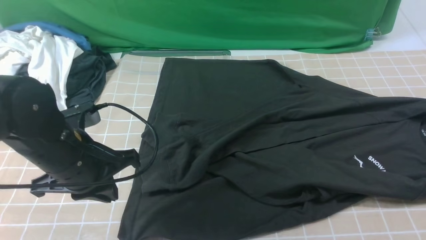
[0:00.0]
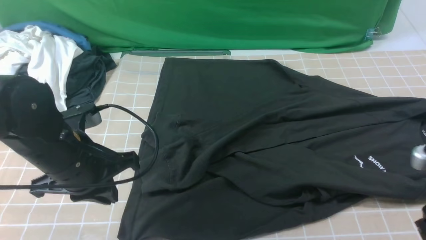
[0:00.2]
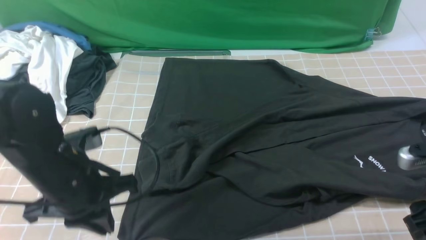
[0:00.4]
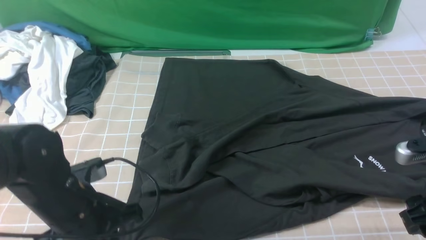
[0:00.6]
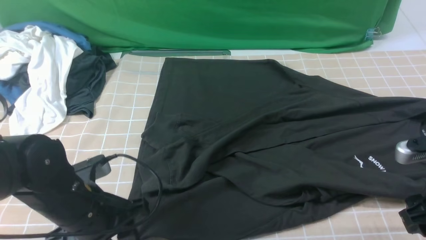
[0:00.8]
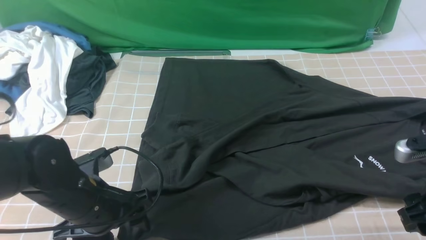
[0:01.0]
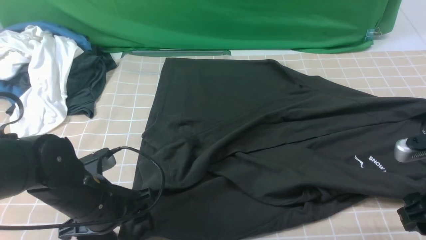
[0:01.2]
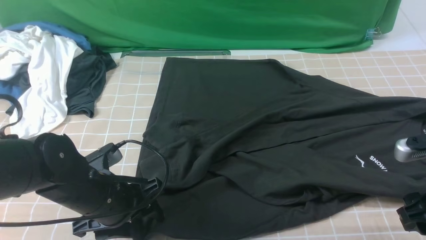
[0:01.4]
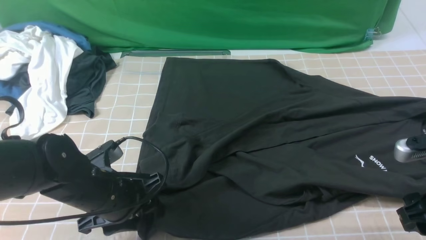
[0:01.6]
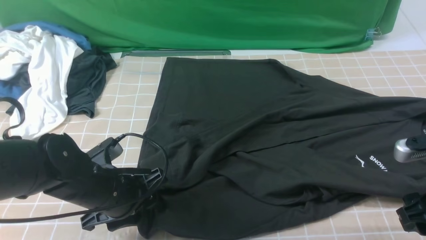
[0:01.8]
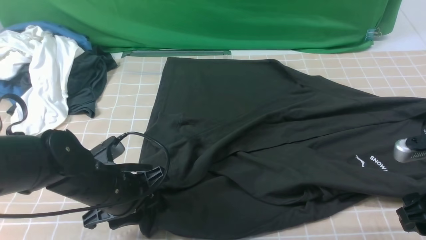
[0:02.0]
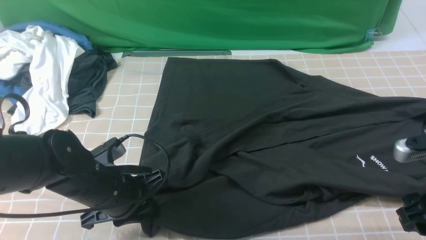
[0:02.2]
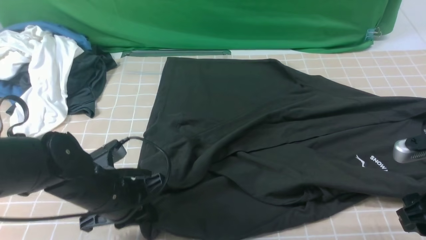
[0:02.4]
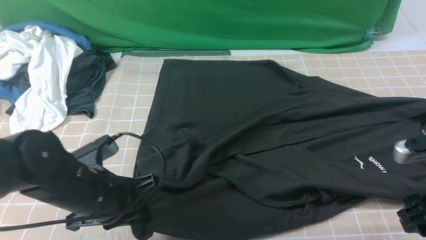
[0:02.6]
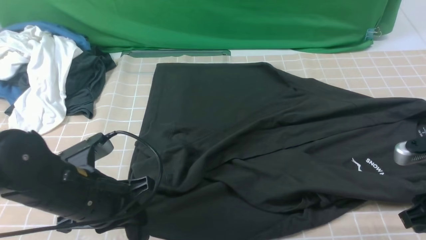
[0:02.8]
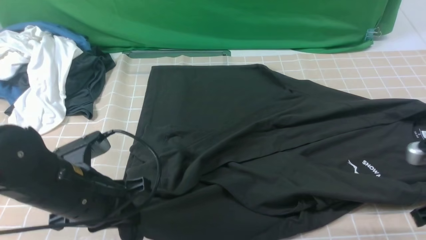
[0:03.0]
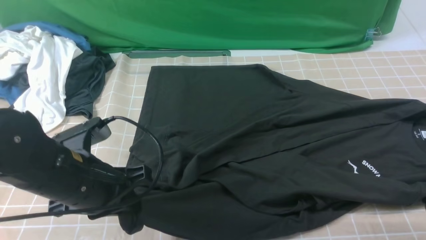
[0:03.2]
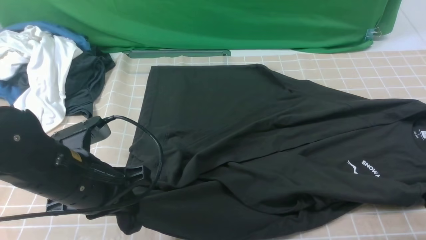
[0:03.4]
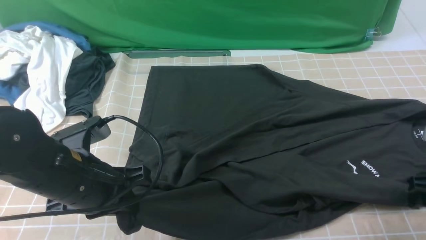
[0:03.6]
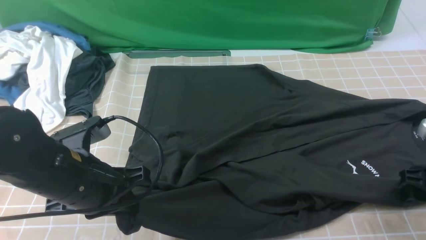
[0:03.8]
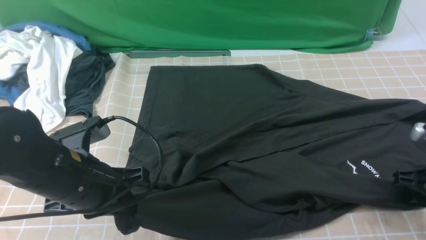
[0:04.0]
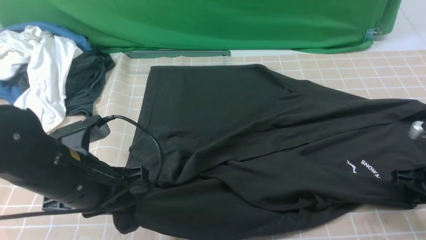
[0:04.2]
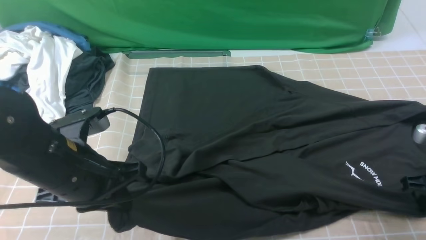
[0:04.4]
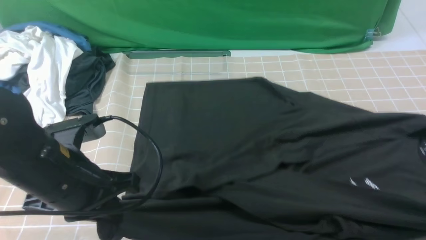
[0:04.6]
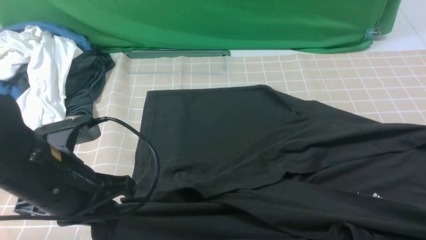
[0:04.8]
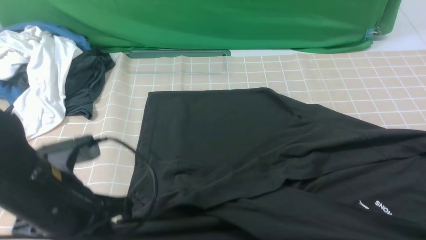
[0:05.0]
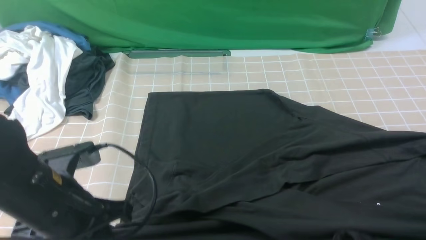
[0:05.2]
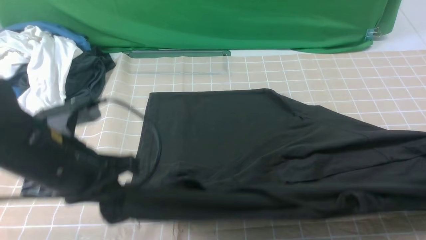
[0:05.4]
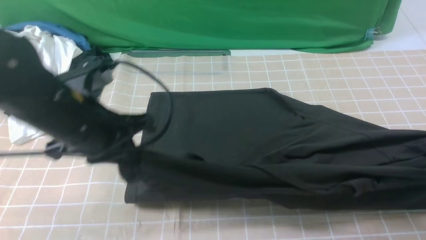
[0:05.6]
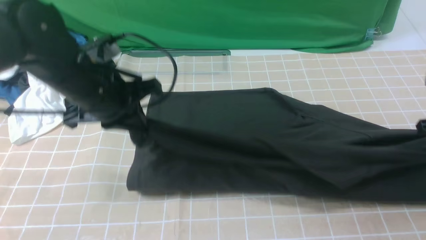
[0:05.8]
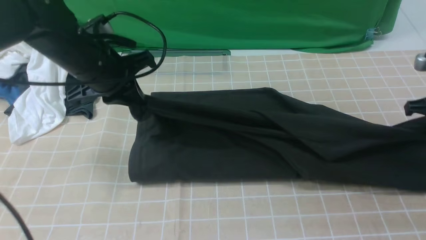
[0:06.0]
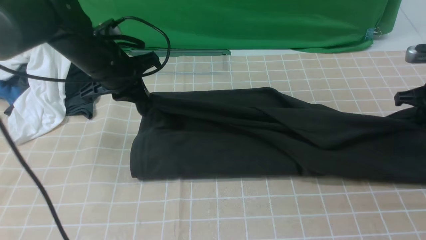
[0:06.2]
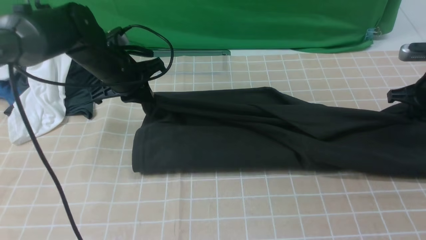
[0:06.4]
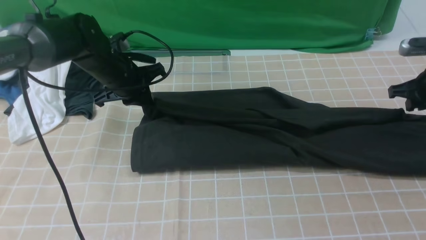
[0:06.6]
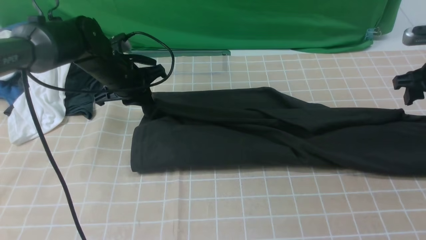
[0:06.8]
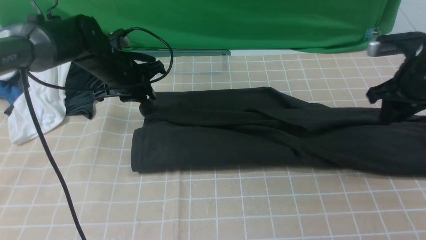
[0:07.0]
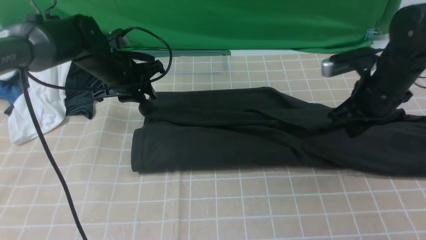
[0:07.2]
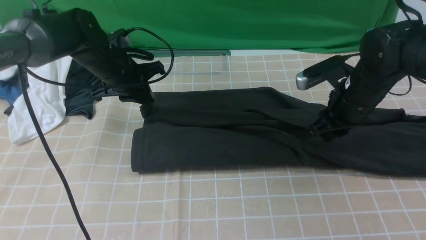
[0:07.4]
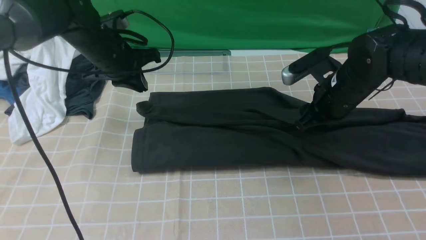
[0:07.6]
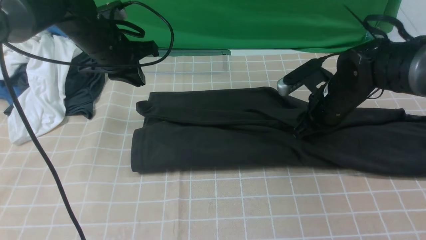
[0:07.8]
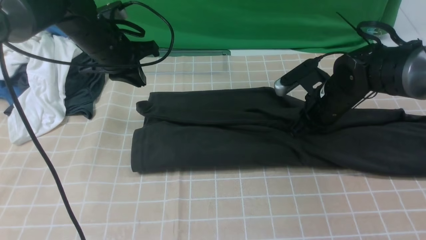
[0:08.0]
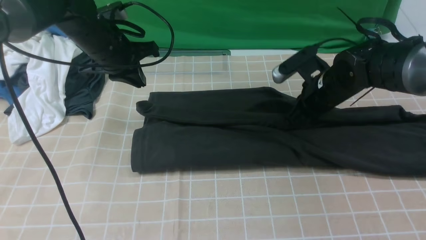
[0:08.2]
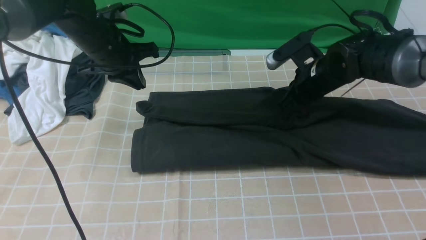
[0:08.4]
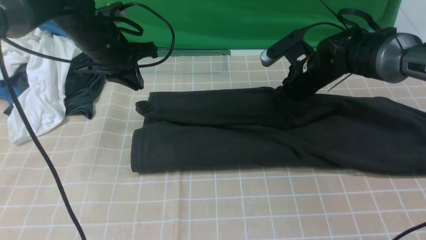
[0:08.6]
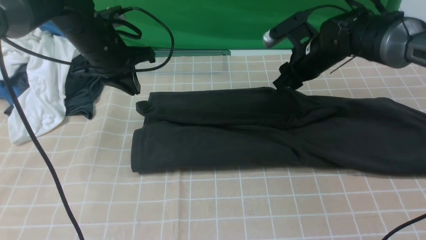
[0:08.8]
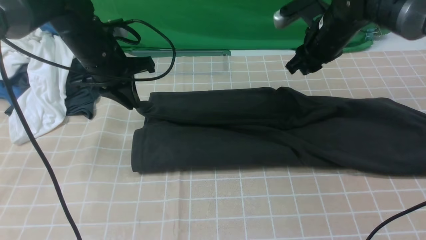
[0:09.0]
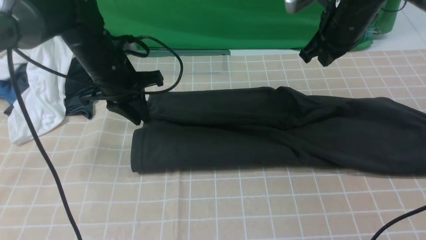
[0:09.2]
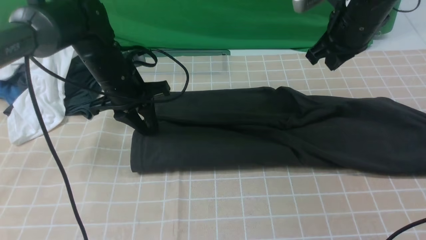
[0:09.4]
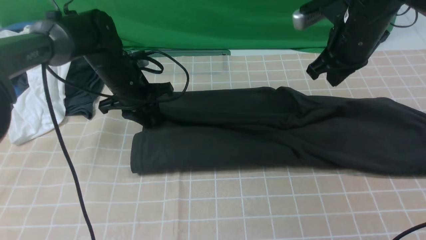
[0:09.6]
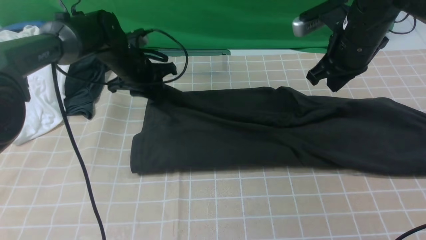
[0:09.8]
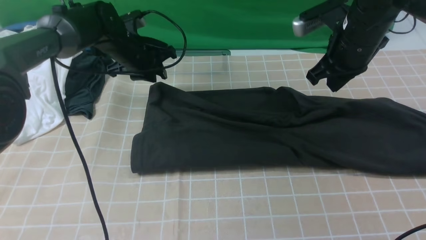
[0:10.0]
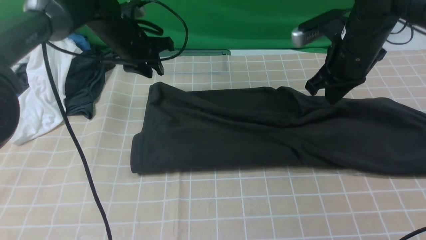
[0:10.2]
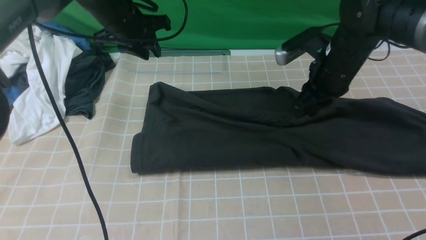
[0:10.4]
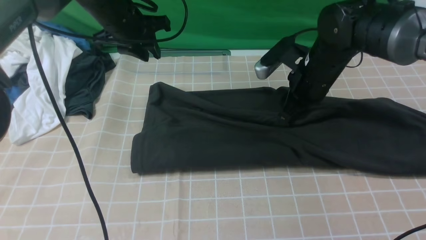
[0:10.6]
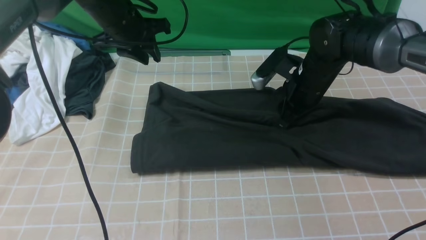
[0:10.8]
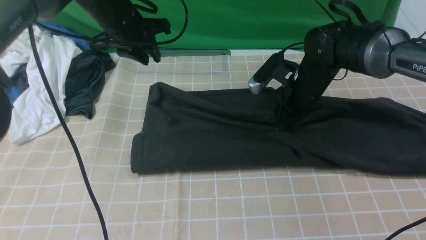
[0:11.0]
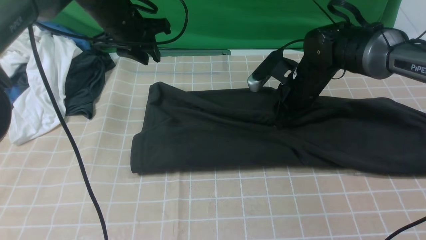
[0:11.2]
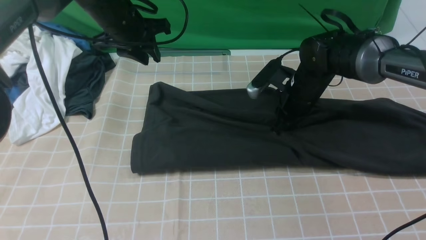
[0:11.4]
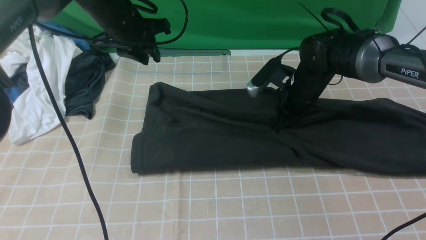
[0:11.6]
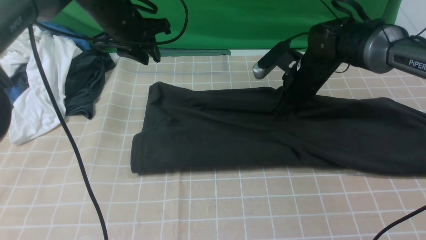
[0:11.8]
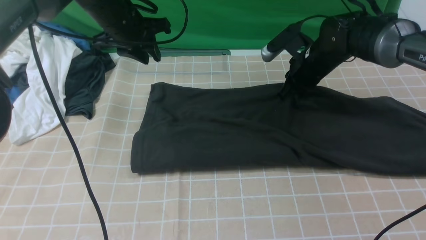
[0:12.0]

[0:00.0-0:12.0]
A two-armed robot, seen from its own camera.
Step, 0:00.0 to 0:04.2: use both arms simultaneously to clamp the lower edge of the clothing fabric.
0:00.0 to 0:01.6: The right gripper changes place by about 5 cm. The left gripper shifts roughly 5 cm downward, and opens its fingers.
0:01.6 to 0:03.0: The right gripper closes its fingers. The left gripper shifts roughly 5 cm upward, and closes up.
0:03.0 to 0:04.4: The right gripper moves approximately 5 cm, and opens, then closes once more.
0:04.4 to 0:06.0: Both grippers travel together forward, about 15 cm.
0:06.0 to 0:07.6: The left gripper travels forward by about 5 cm; the right gripper goes some 15 cm to the left, and opens its fingers.
0:07.6 to 0:09.0: The right gripper heads forward and upward, covering roughly 10 cm.
0:09.0 to 0:10.4: The right gripper changes place by roughly 5 cm, and closes and opens again; the left gripper moves forward, approximately 5 cm, and moves approximately 5 cm downward and comes back.
0:10.4 to 0:12.0: The right gripper travels forward and downward by some 10 cm.

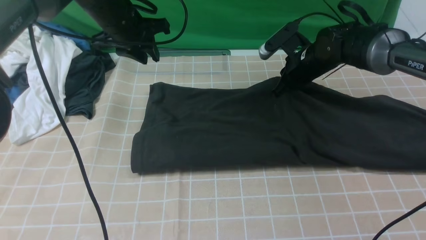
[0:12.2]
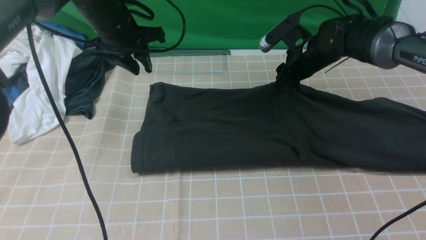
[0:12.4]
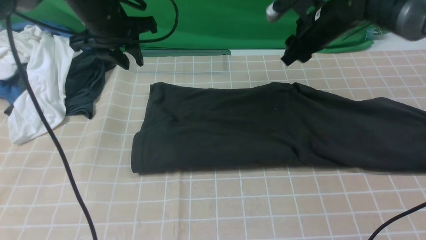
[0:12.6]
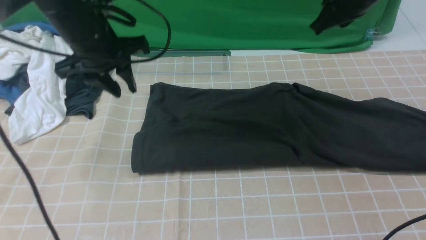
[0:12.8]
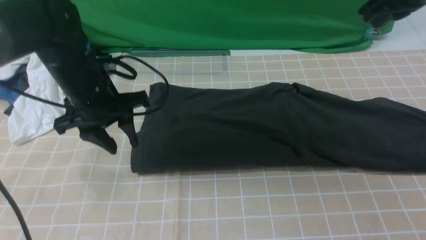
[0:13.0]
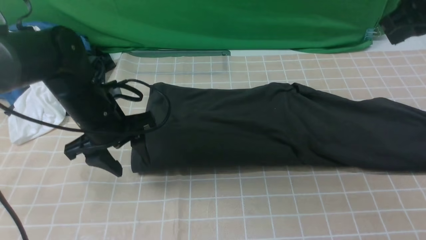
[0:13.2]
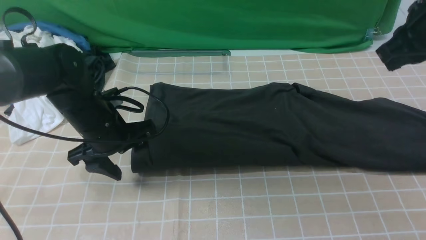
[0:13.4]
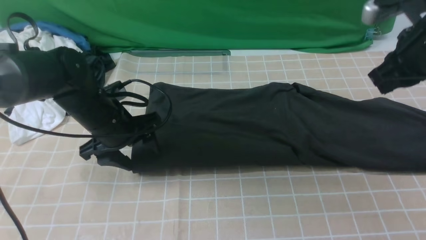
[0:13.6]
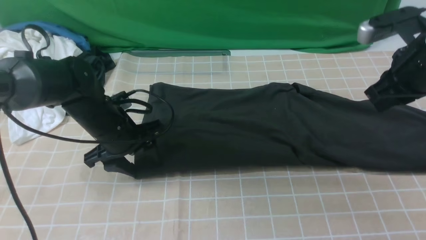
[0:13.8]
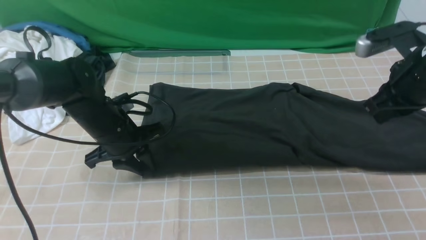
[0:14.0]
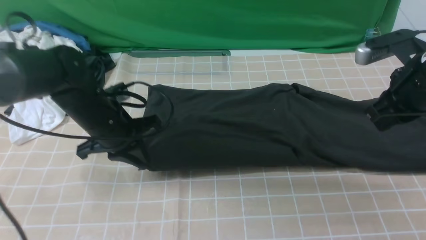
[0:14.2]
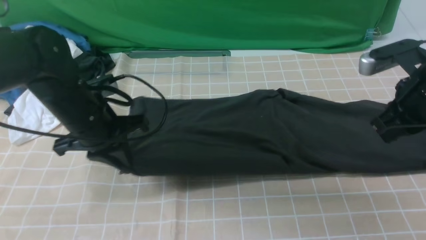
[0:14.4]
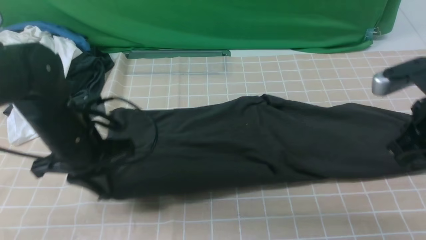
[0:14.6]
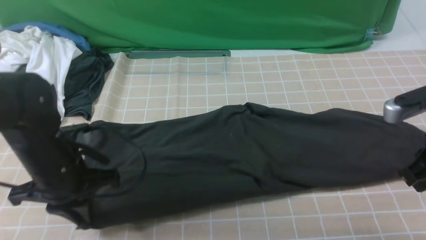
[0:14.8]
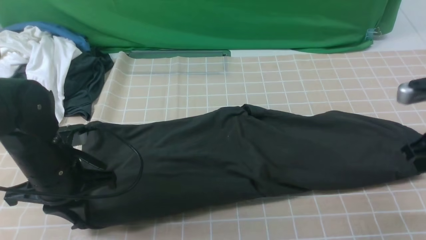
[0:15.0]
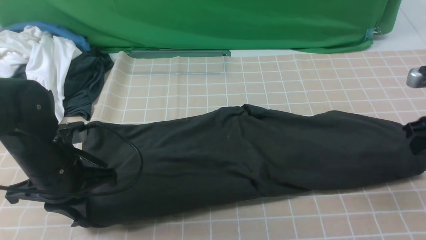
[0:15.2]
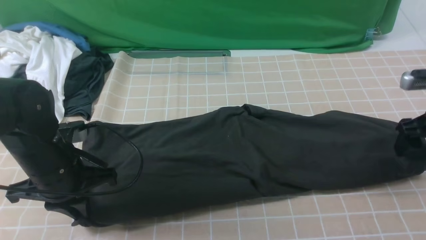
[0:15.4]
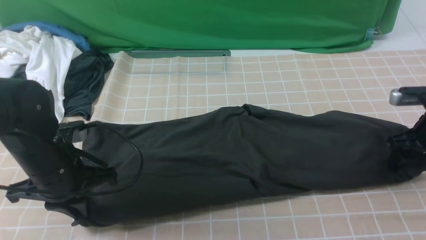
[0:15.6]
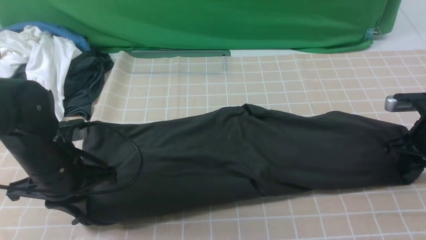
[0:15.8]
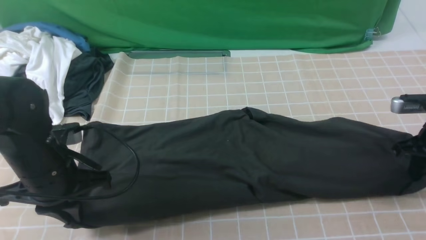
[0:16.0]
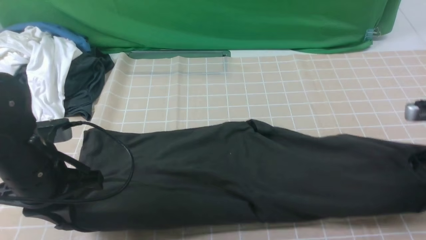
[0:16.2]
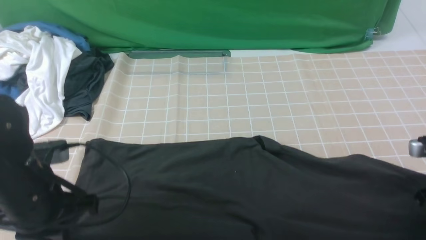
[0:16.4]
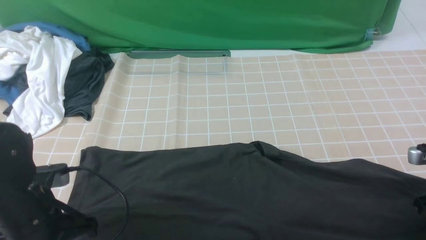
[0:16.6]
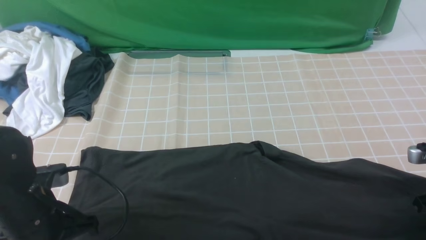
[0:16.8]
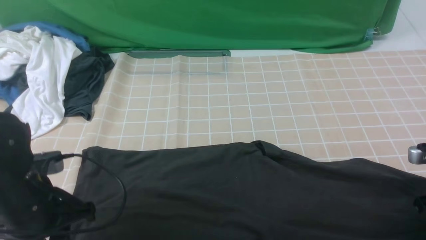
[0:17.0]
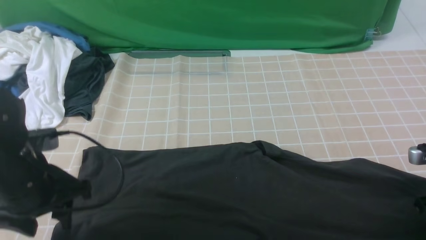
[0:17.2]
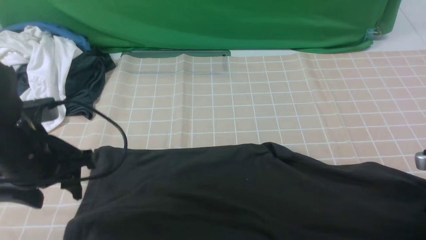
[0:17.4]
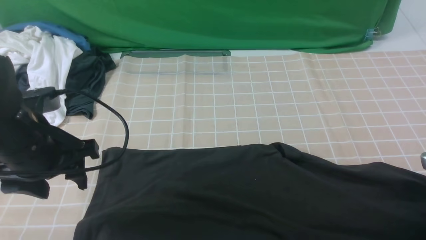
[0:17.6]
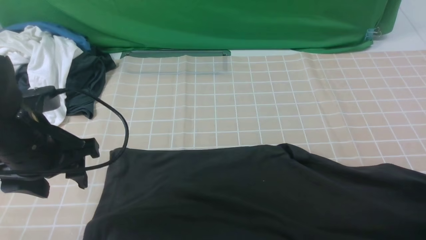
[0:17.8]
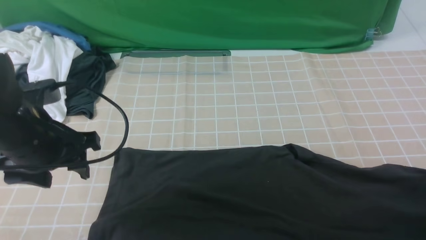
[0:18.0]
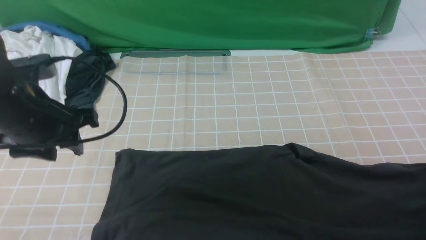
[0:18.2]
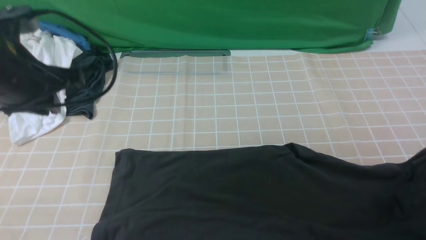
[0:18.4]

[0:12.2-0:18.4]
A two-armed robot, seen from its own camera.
Step, 0:12.6 to 0:15.8: use the right arm to clamp the right edge of the fabric.
0:12.2 to 0:13.8: The right gripper travels backward, upward and to the right by approximately 20 cm. Meanwhile the left gripper shifts roughly 15 cm backward and downward.
0:13.8 to 0:15.4: The left gripper is displaced backward by approximately 10 cm, and closes its fingers; the right gripper heads downward and to the right, covering approximately 15 cm, and opens.
0:15.4 to 0:16.8: The grippers both shift backward by some 5 cm. The right gripper closes its fingers.
0:16.8 to 0:18.4: The left gripper travels upward and forward by approximately 15 cm, and opens, then closes again. The right gripper travels upward by about 10 cm.
